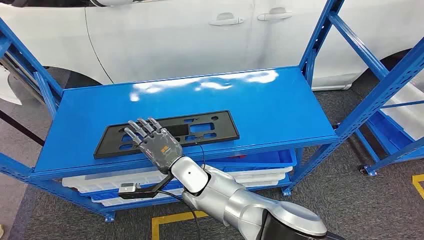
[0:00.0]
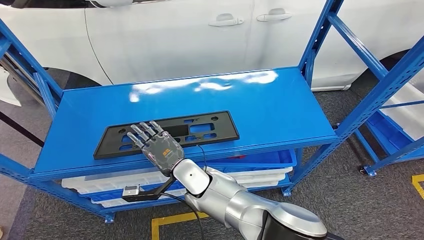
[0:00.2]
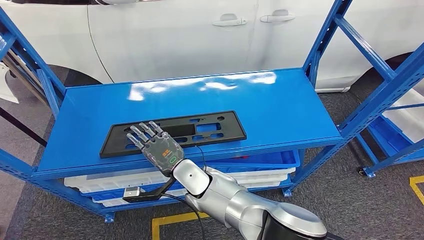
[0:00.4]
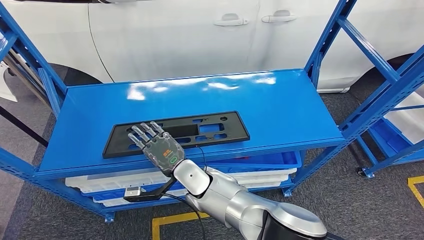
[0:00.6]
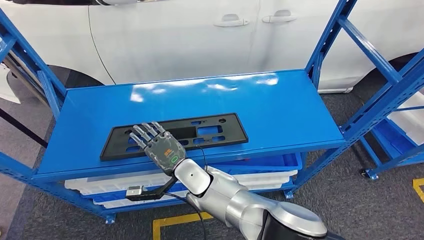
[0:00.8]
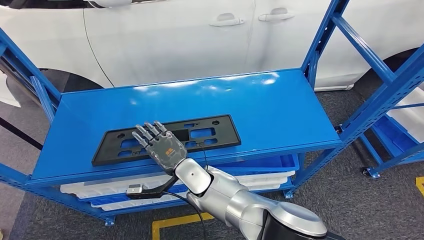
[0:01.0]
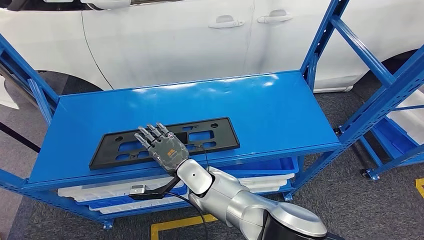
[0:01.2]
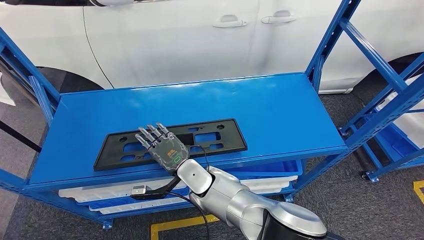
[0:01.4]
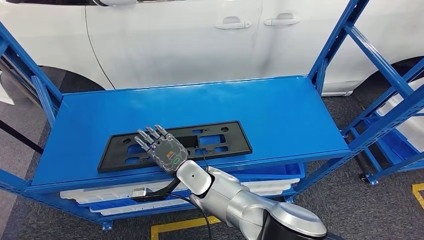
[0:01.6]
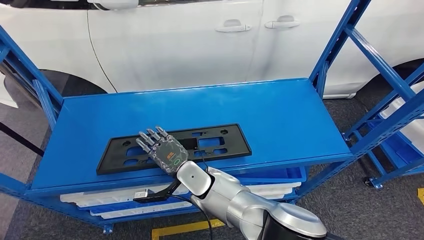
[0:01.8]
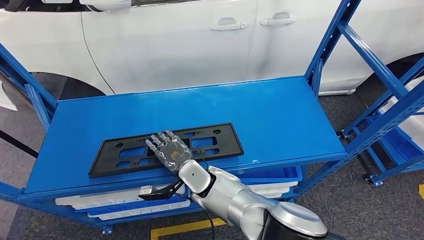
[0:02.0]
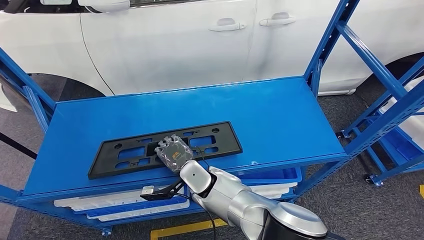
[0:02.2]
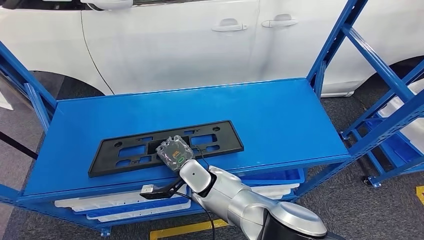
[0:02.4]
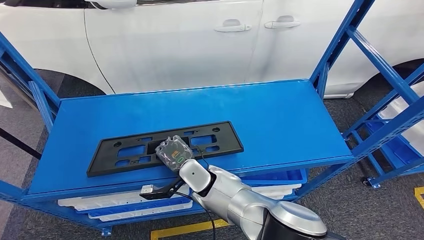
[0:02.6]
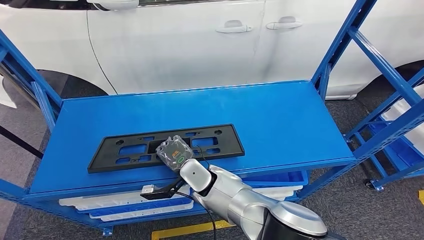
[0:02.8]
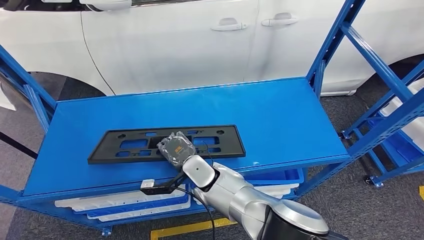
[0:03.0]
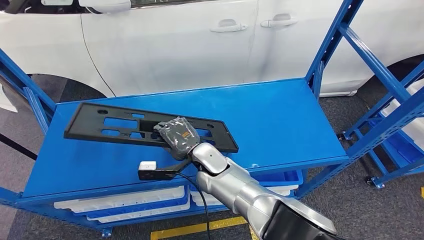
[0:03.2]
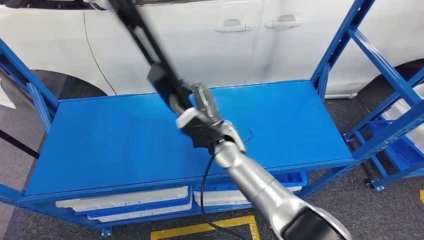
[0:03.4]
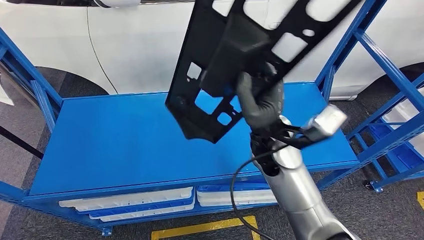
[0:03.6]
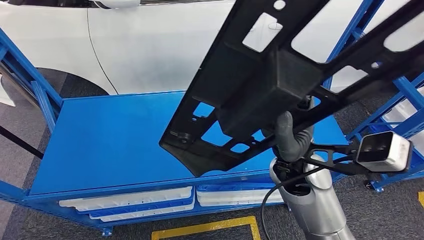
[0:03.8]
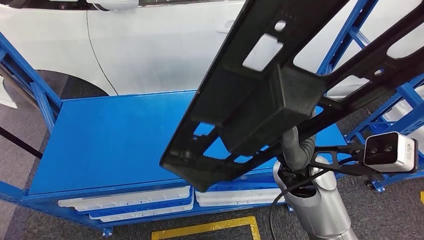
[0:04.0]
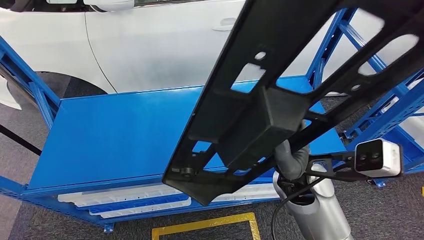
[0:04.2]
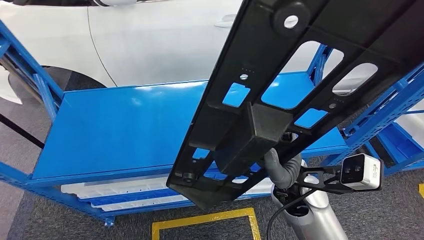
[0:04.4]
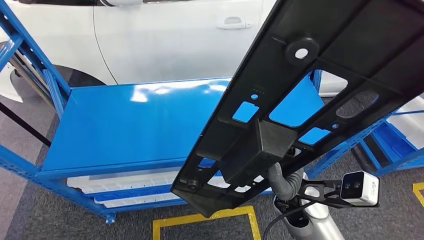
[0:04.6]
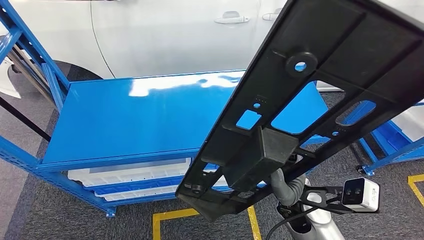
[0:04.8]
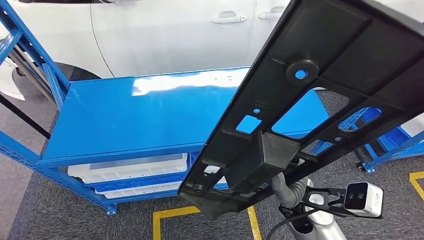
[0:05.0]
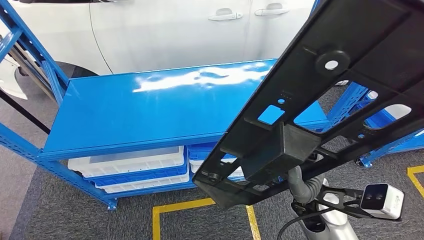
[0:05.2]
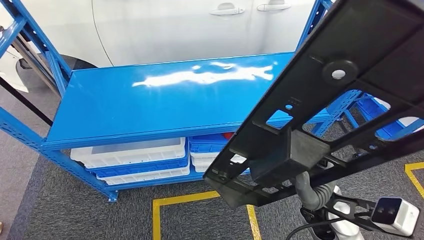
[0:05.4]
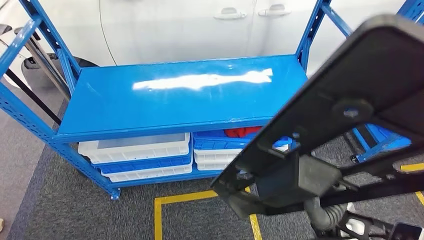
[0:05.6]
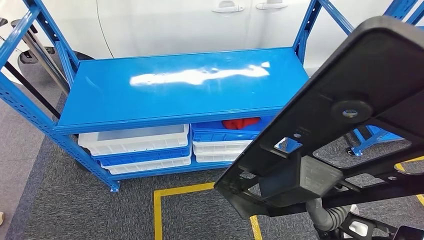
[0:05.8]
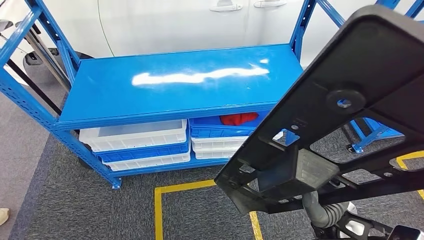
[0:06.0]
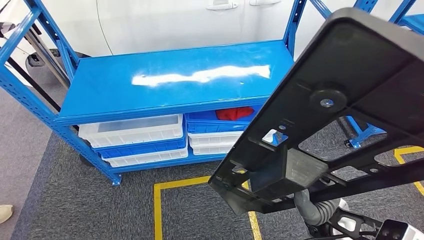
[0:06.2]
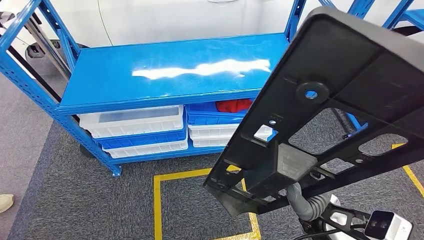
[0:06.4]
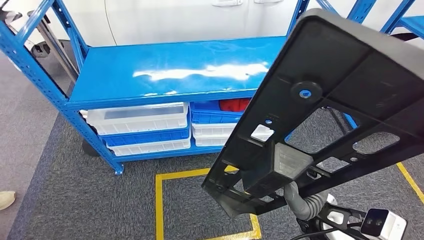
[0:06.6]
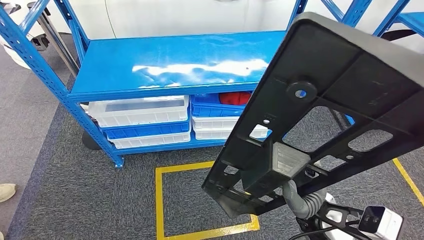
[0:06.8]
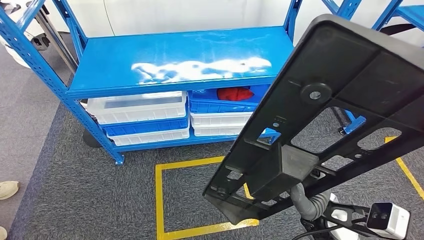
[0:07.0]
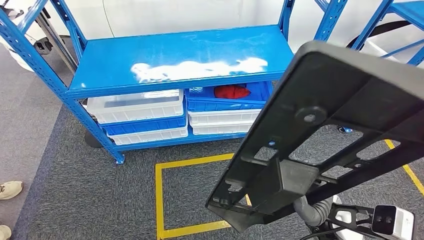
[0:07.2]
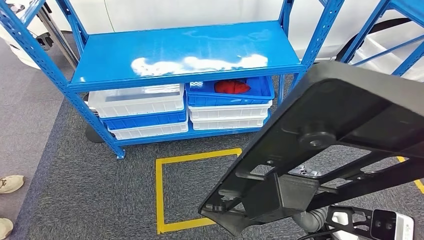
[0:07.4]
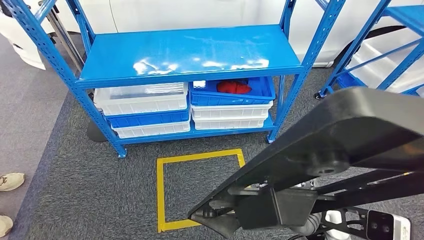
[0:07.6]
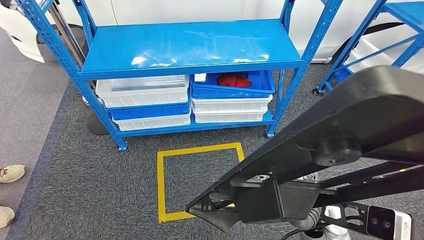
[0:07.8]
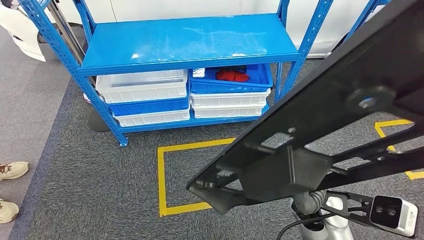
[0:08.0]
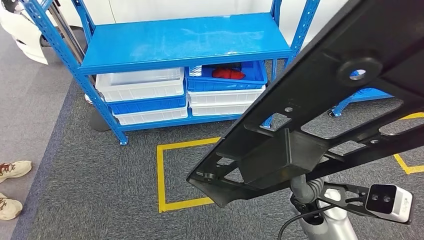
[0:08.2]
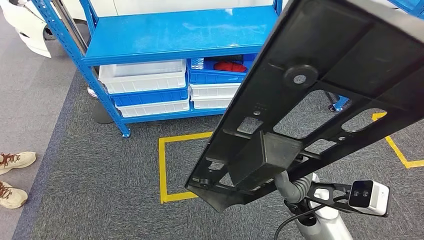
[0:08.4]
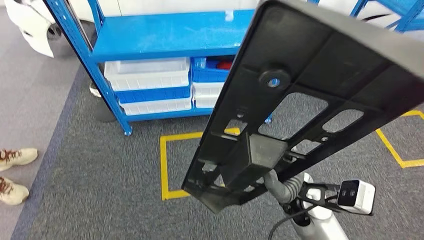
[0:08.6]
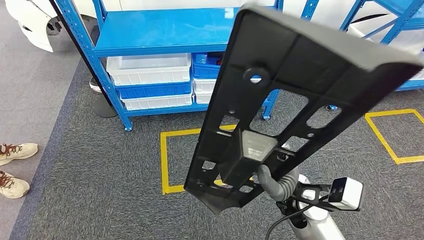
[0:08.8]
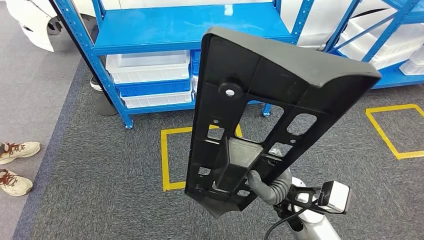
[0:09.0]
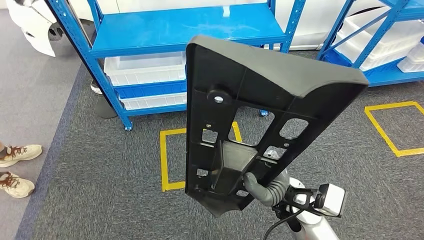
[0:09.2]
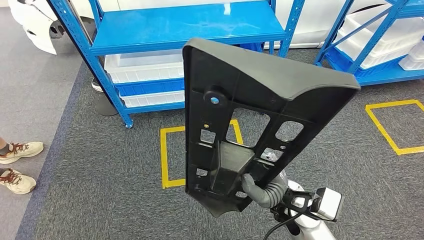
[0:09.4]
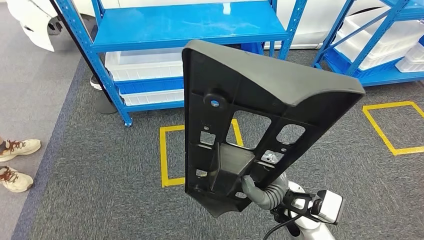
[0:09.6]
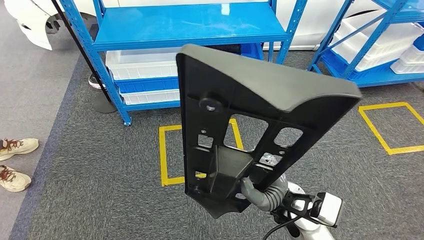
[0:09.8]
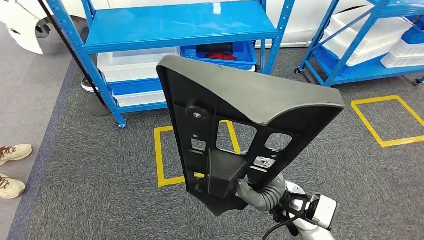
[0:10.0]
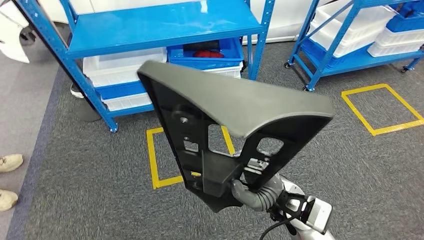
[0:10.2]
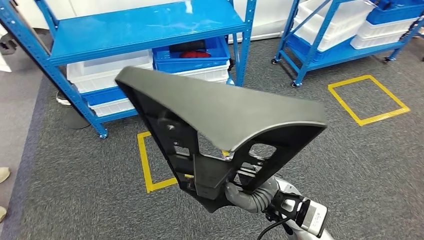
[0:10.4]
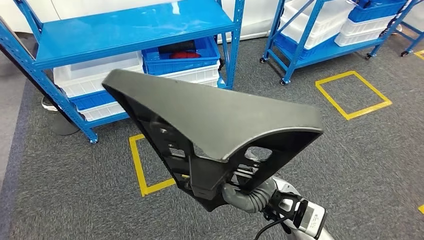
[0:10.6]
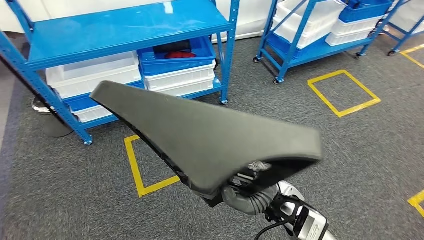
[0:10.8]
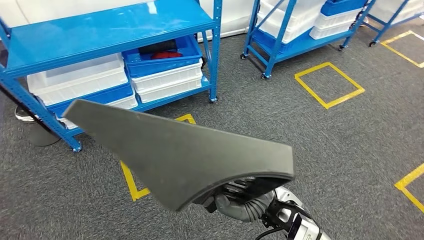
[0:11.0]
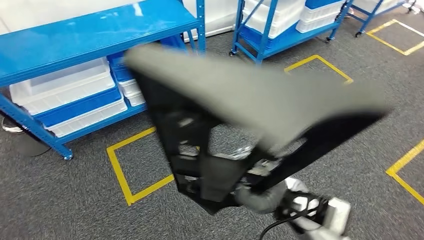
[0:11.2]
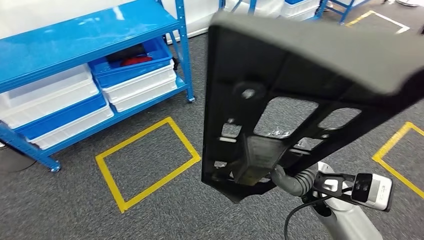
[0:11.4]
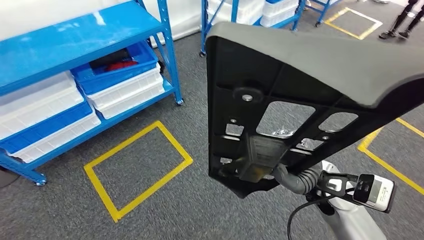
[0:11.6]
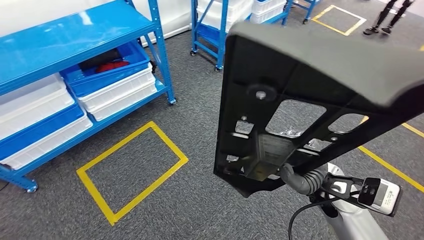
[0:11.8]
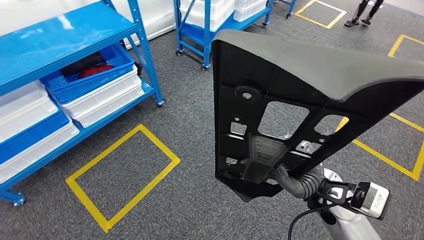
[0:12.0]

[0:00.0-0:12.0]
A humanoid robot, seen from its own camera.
Step, 0:00.0 to 0:03.0: Pick up the large material from the shelf.

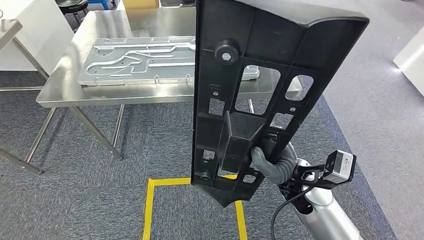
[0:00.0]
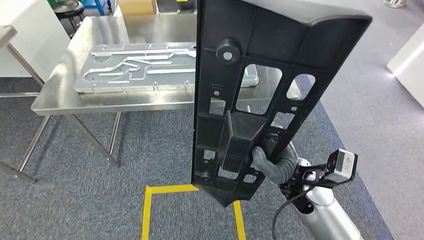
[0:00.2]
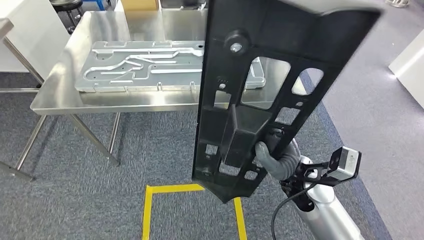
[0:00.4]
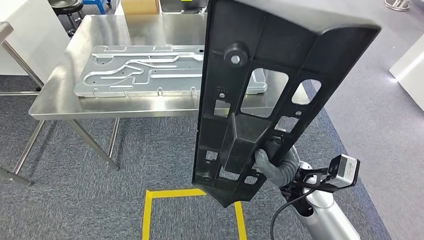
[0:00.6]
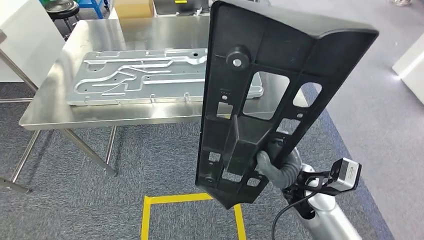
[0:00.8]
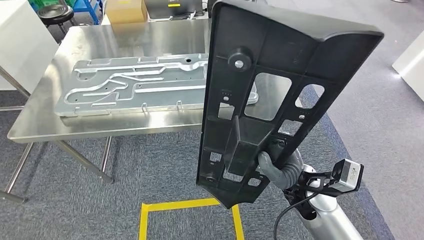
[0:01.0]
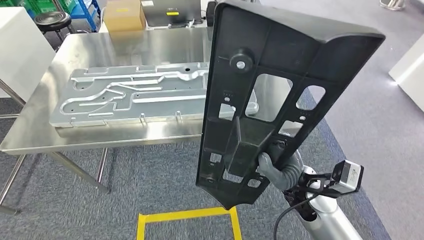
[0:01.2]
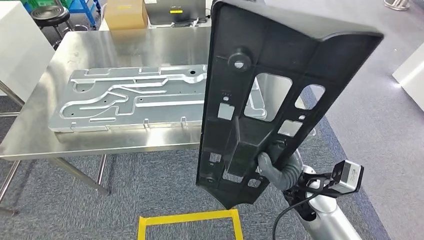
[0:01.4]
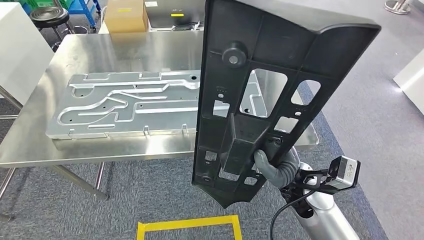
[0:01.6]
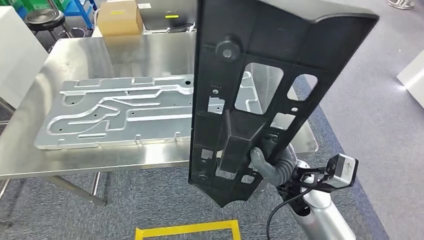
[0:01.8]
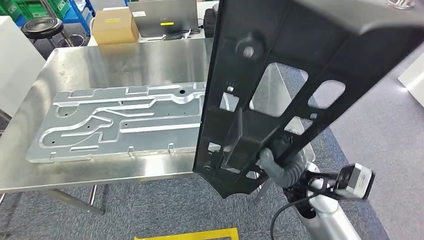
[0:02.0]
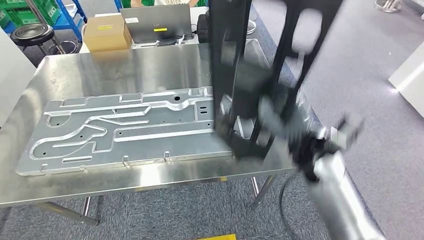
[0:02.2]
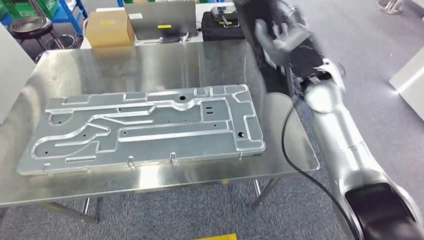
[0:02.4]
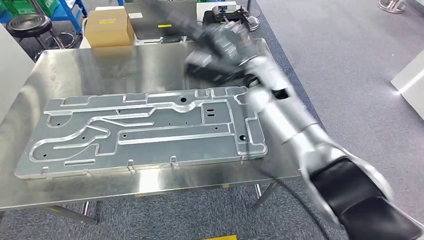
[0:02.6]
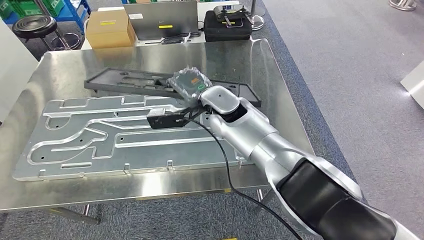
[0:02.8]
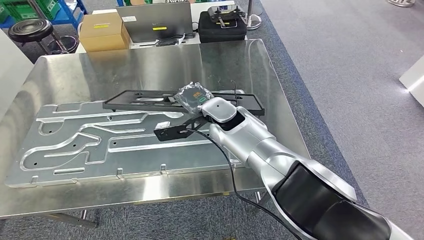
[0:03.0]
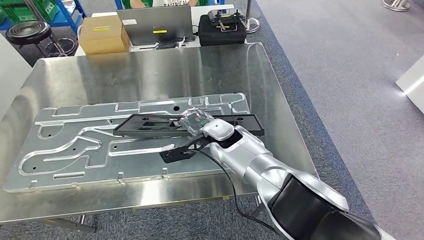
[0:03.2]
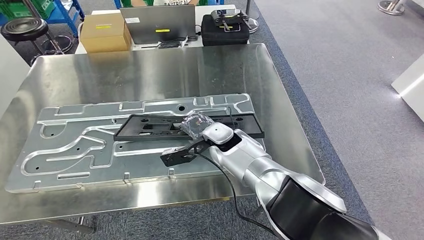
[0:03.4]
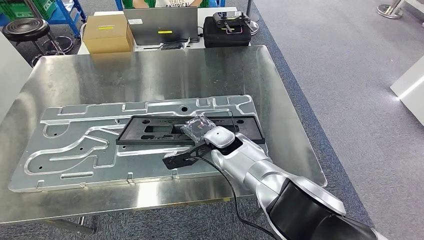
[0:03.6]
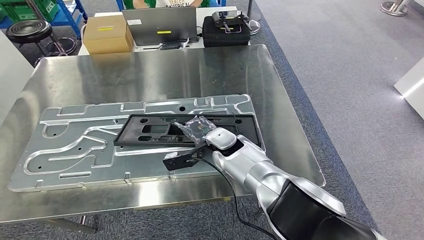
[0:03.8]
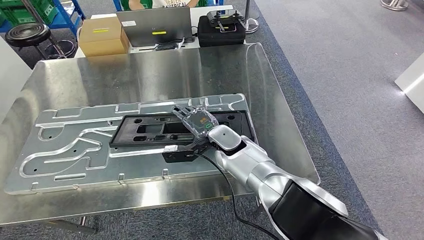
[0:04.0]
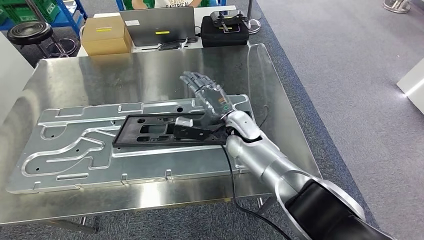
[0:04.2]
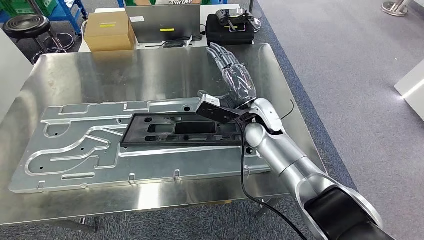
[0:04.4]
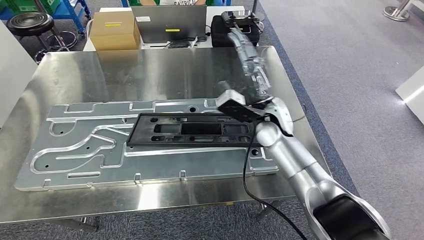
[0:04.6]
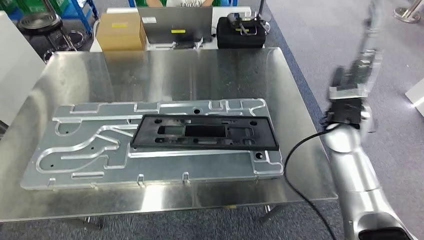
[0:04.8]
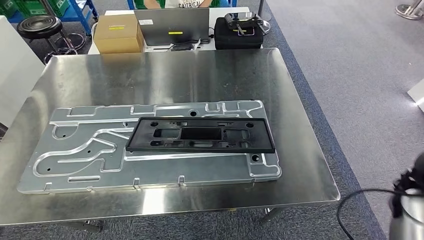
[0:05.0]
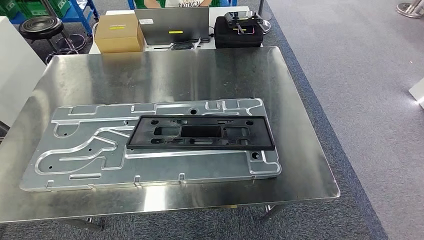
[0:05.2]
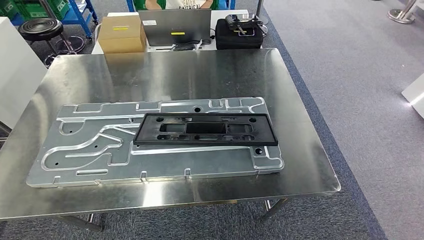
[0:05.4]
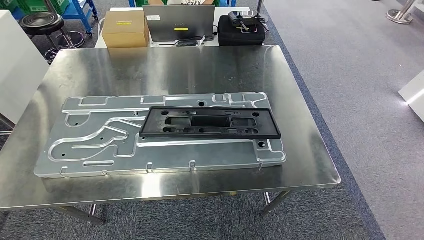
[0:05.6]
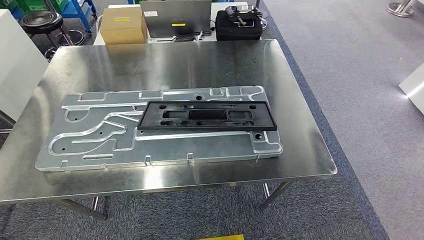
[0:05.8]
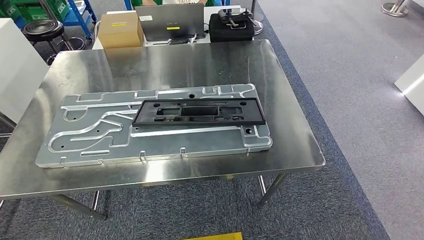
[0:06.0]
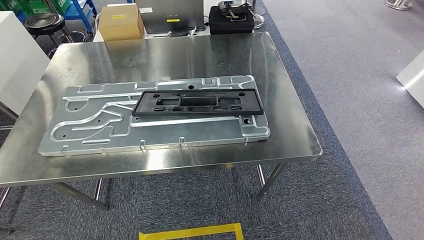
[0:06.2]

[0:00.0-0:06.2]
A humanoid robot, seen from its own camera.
Step, 0:00.0 to 0:03.2: Move the large material to the workbench.
Step, 0:03.4 to 0:05.6: Insert the large material into the corresponding slot on the workbench.
